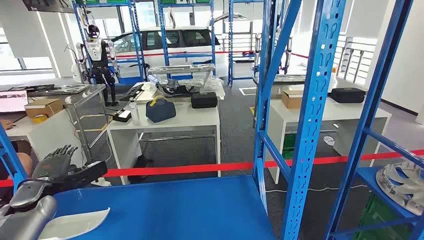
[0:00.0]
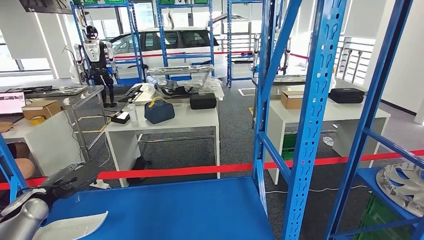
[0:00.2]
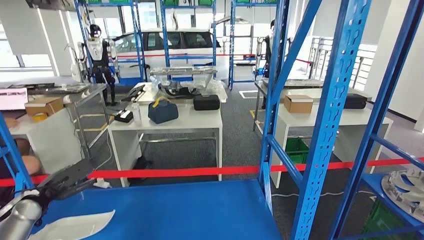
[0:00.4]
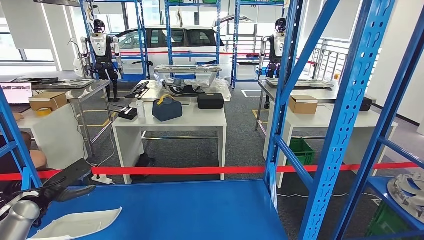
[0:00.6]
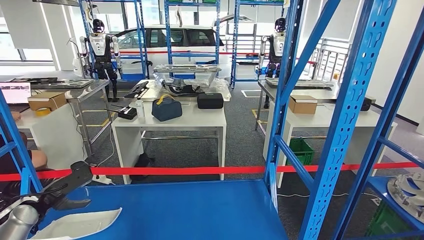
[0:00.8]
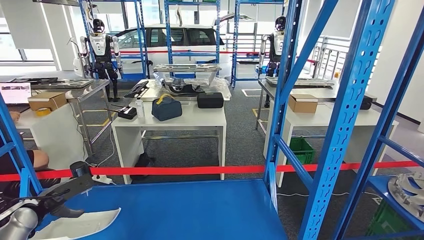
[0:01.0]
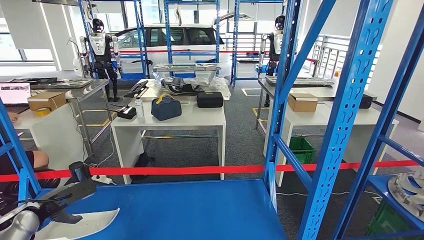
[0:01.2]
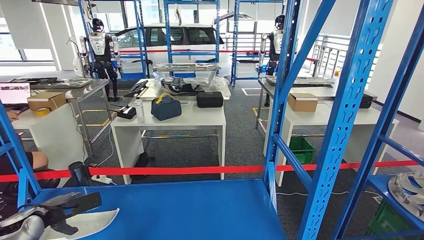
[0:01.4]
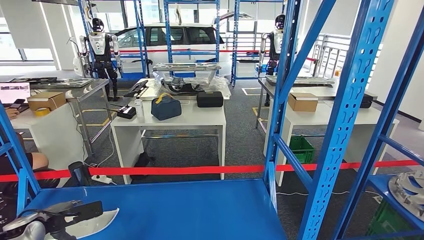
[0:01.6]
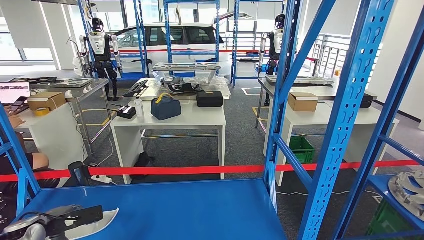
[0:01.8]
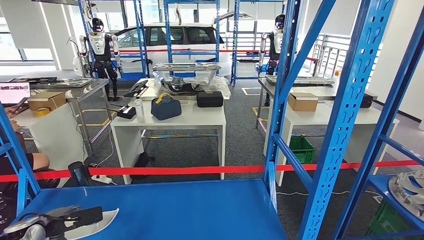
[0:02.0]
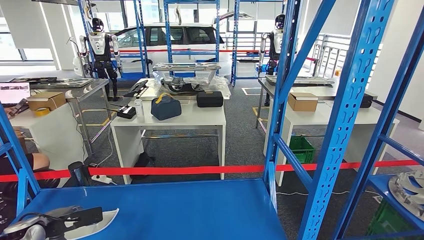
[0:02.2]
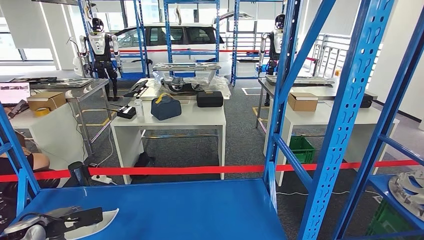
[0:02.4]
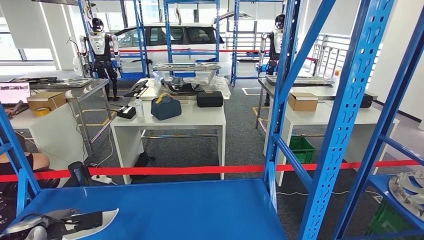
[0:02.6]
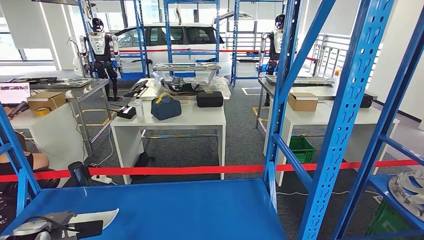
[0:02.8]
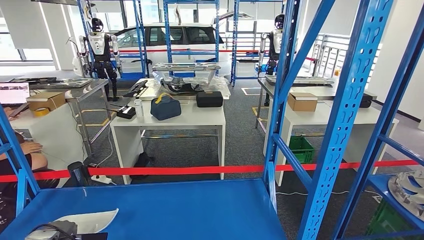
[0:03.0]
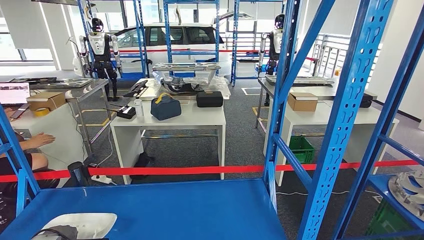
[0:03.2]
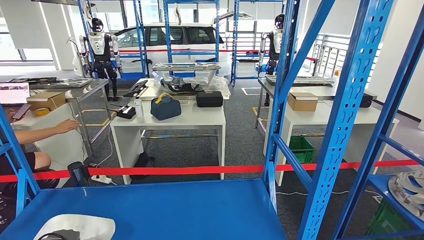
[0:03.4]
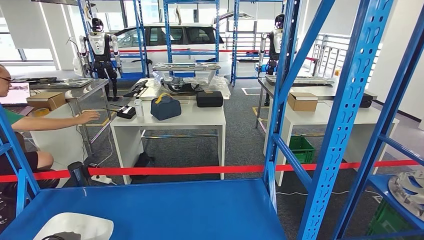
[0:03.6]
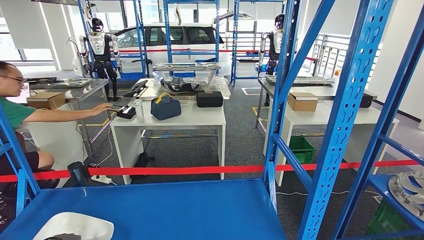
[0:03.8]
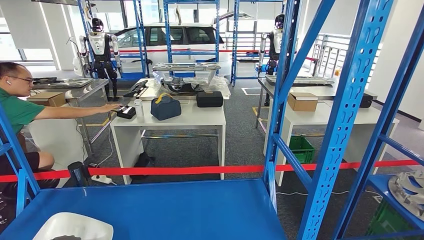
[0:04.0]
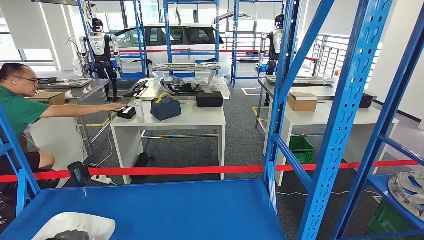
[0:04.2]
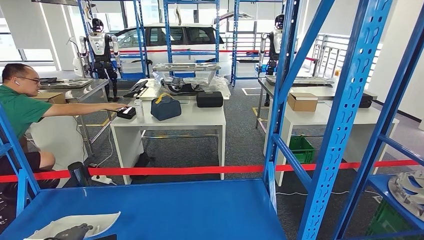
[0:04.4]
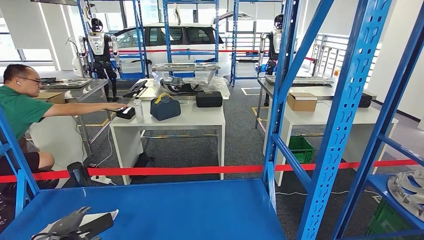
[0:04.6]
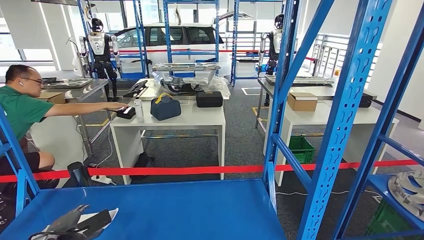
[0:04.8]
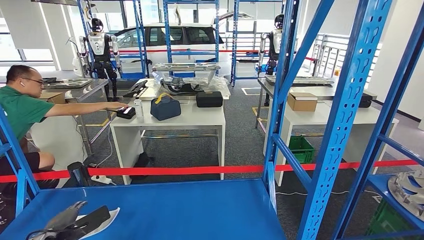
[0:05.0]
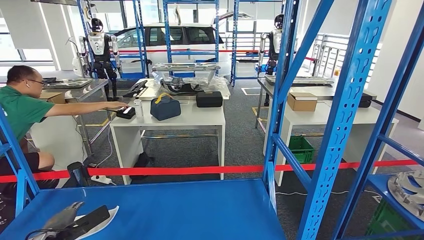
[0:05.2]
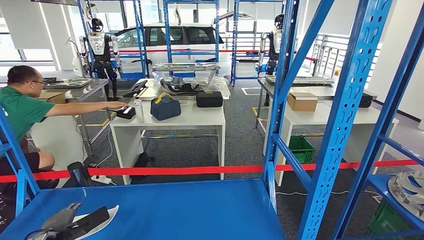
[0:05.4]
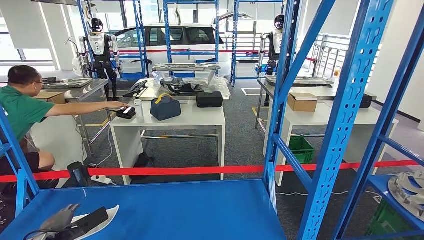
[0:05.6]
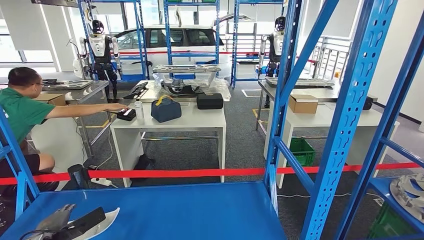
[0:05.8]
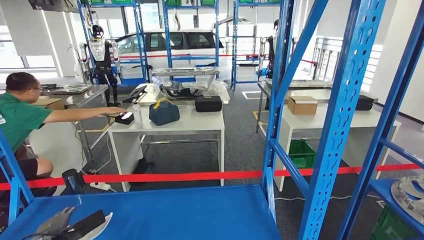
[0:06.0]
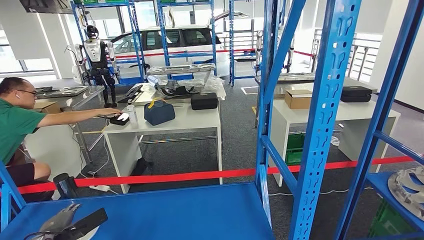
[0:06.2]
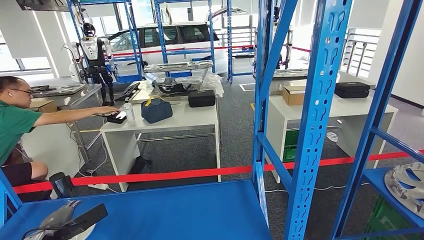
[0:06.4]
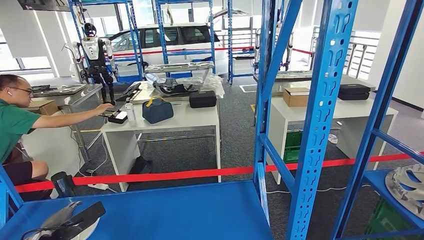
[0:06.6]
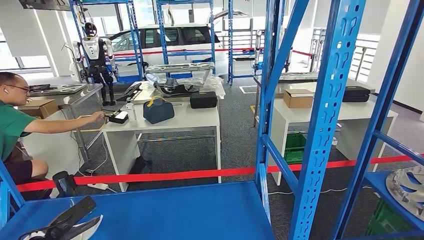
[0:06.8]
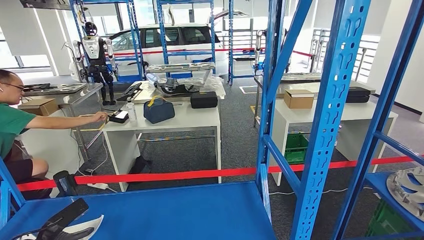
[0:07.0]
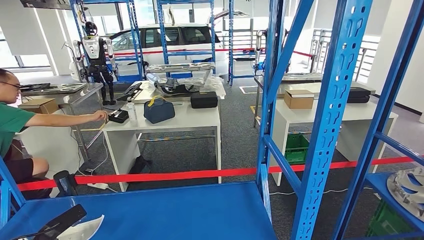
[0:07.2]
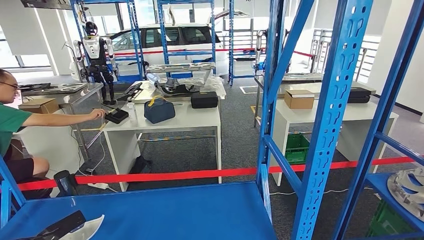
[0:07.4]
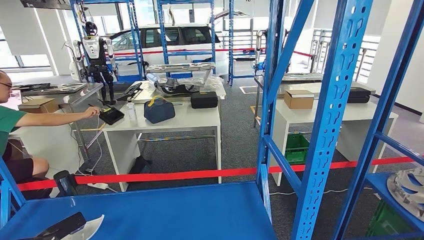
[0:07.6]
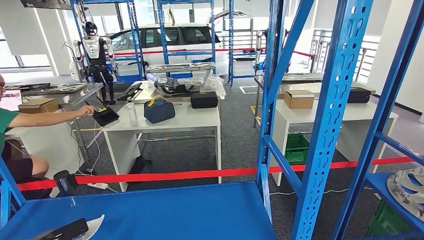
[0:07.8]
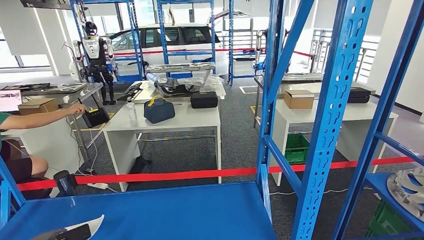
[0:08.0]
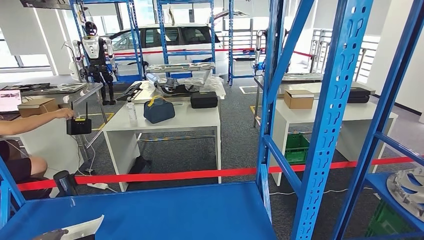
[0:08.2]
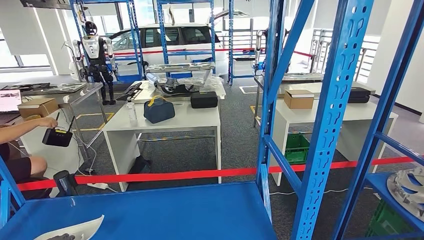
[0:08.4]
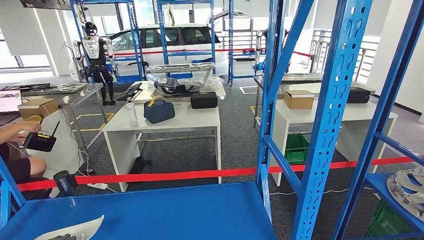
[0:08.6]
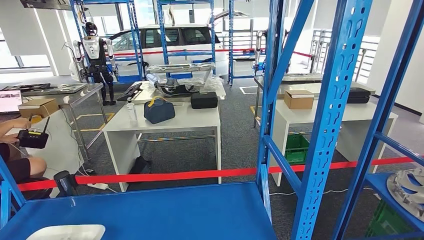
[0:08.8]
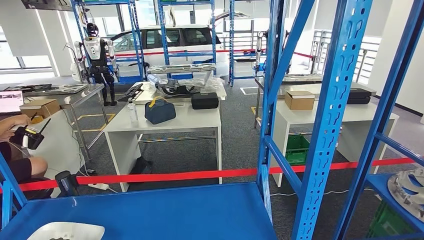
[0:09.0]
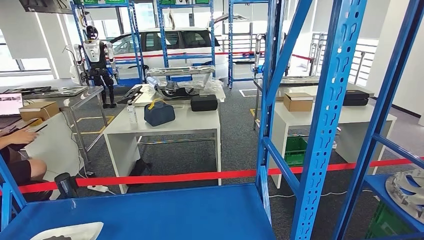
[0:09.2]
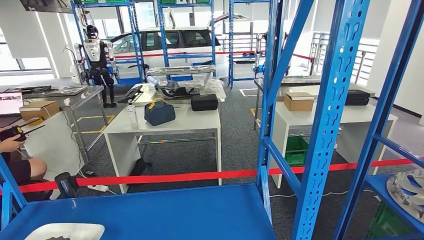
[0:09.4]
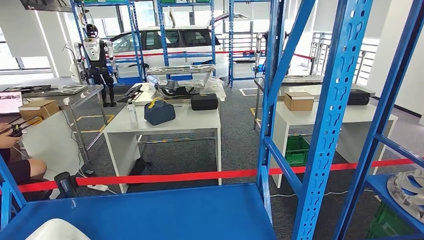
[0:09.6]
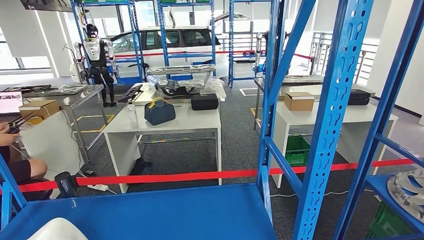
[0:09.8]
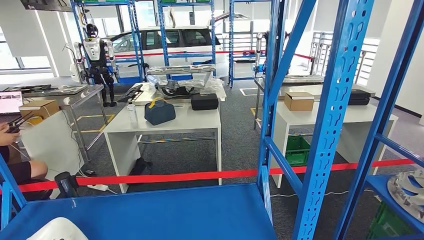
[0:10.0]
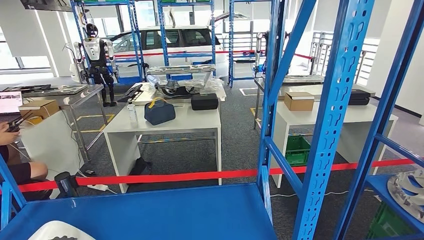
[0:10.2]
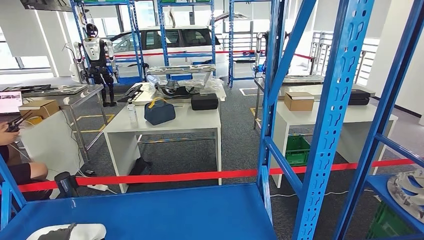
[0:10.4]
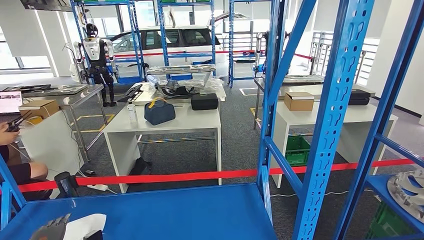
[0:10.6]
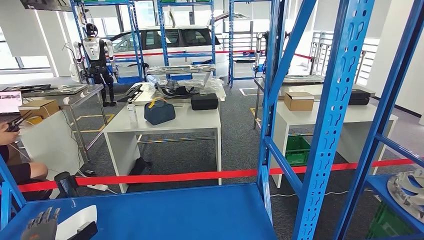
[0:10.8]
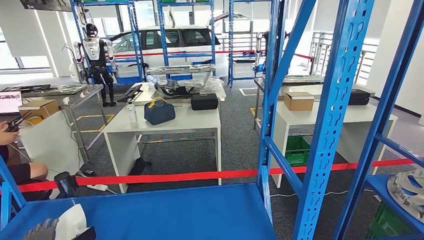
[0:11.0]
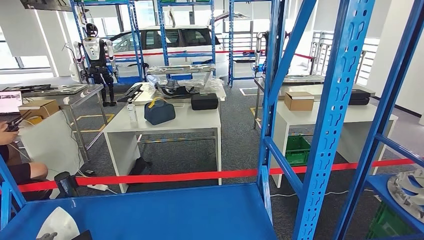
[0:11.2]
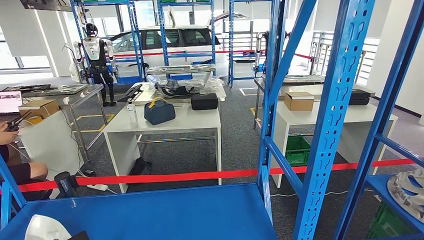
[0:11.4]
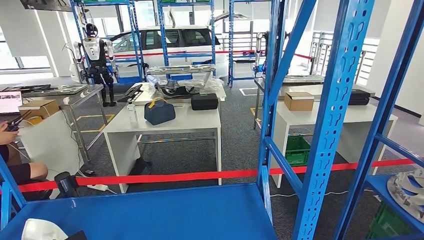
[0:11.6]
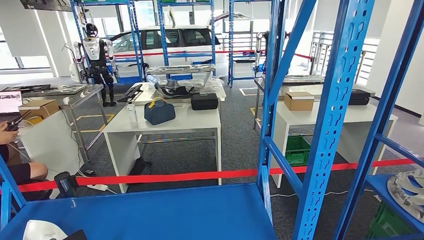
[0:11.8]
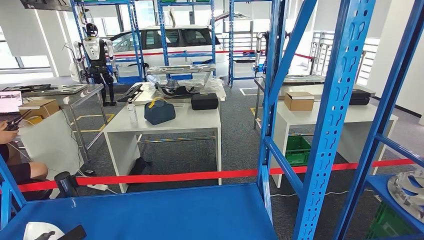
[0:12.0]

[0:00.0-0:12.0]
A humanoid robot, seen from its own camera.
0:03.0 to 0:04.4: There are only small adjustments of the hands.
0:07.6 to 0:09.0: The left hand ends up about 5 cm from where it was.

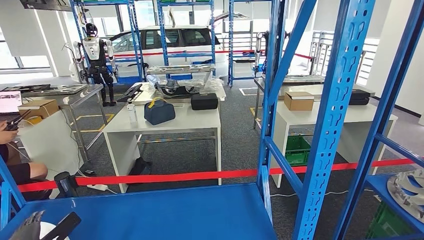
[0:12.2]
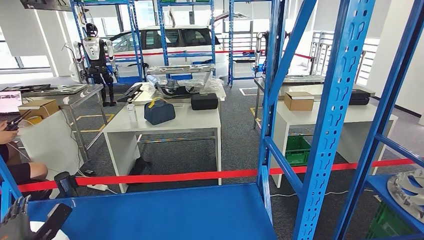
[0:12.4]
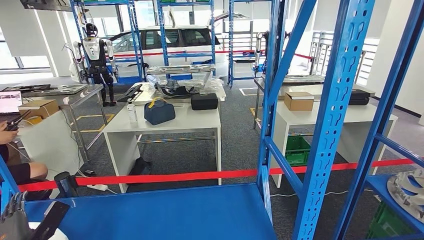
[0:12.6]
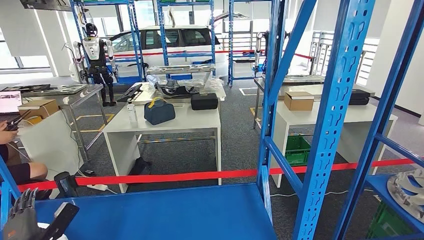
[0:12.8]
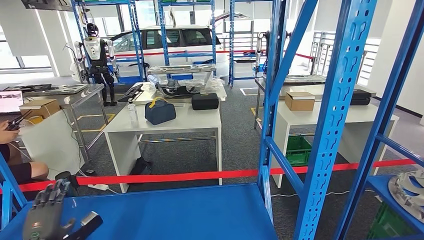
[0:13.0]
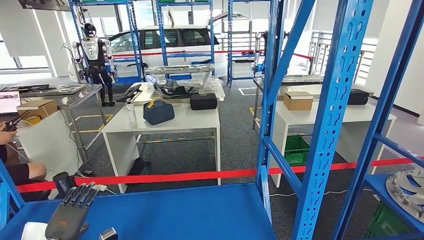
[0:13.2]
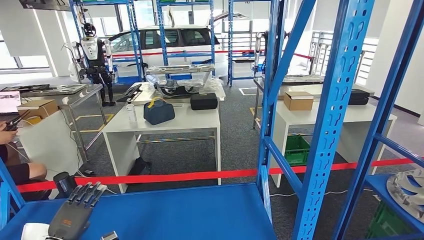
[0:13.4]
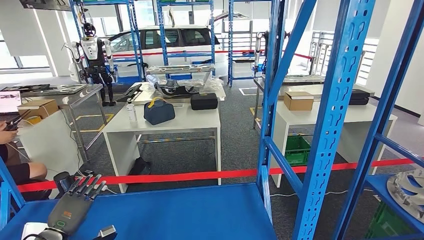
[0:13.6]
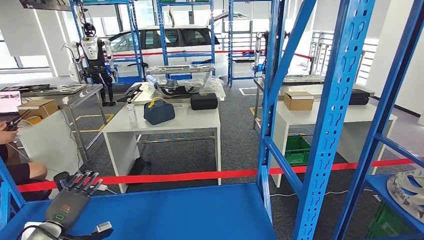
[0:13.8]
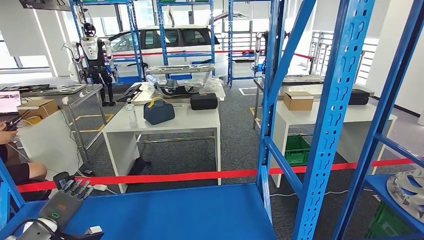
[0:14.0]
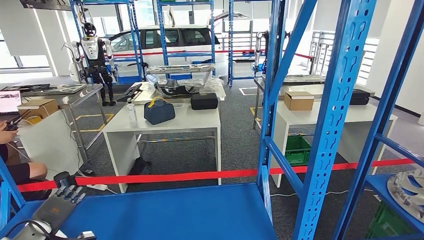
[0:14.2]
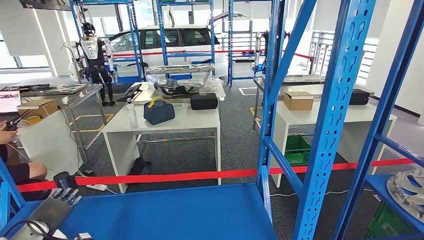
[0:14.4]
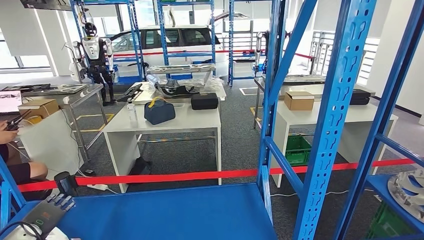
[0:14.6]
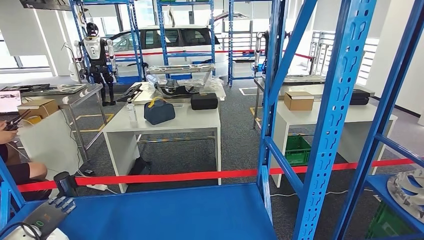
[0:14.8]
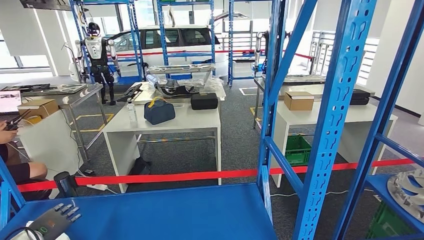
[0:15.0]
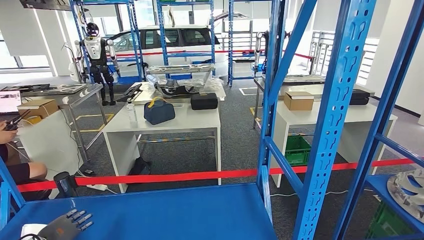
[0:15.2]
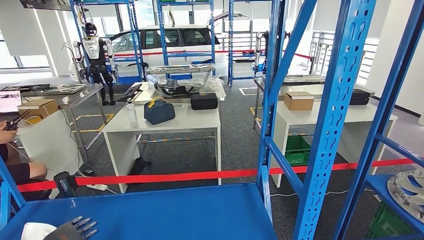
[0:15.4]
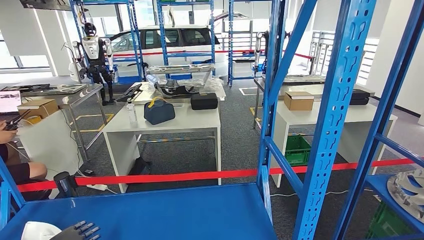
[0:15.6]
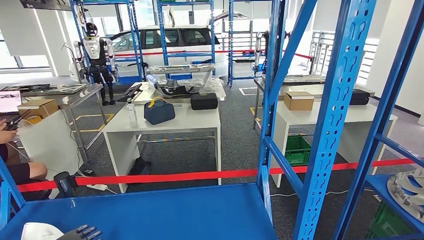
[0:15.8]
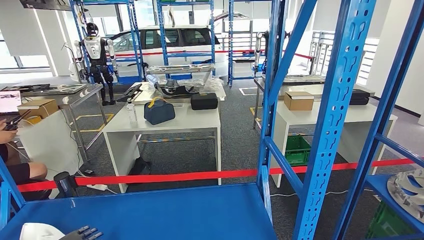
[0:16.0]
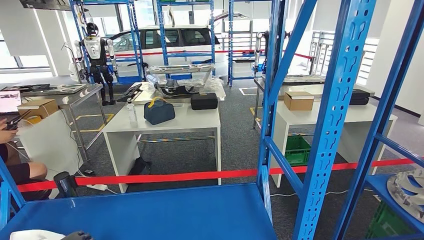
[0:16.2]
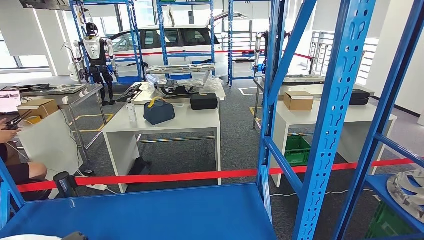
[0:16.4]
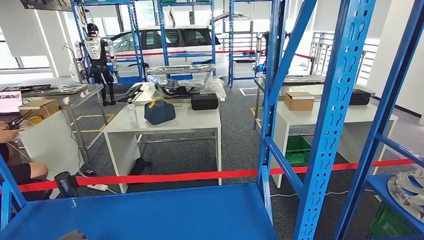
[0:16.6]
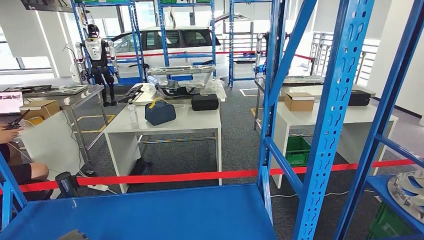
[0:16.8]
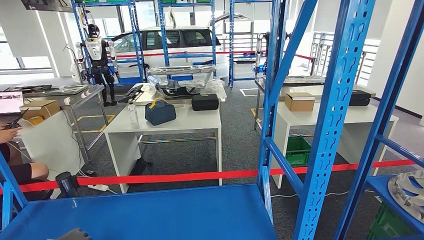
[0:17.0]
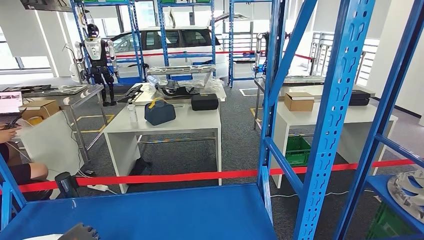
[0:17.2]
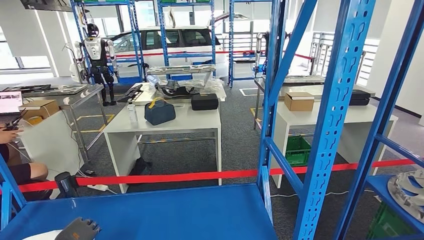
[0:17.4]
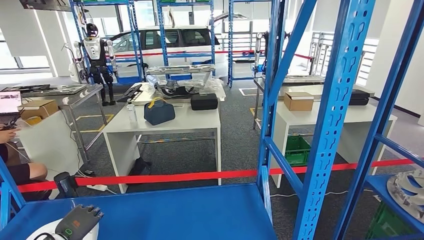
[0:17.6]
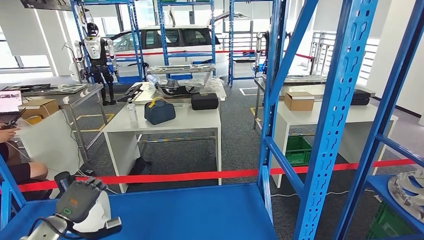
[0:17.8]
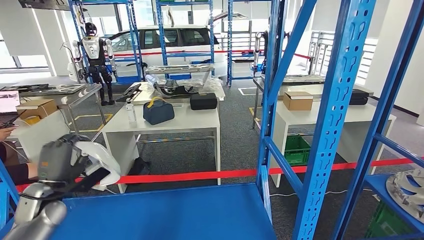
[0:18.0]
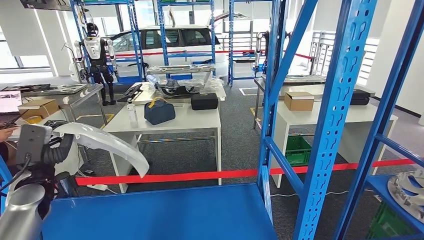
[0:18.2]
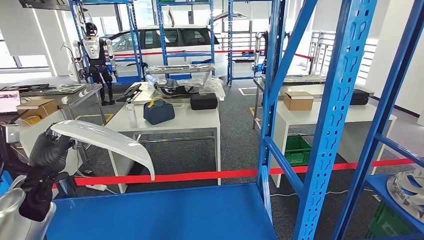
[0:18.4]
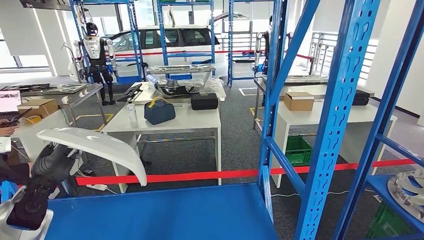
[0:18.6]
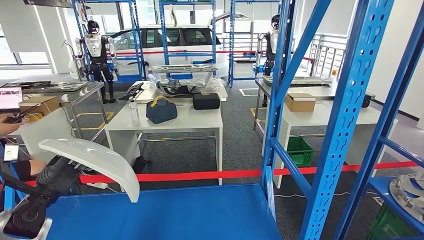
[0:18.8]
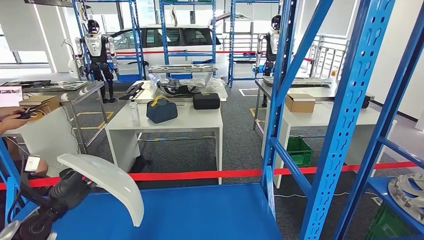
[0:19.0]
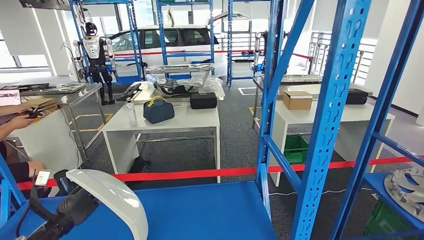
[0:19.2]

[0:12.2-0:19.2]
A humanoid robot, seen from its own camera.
0:12.2 to 0:13.6: The left hand moves approximately 5 cm.
0:13.6 to 0:15.0: The left hand travels to the left by some 5 cm.
0:15.0 to 0:16.4: The left hand moves about 5 cm.
0:16.4 to 0:17.8: The left hand moves upward, roughly 5 cm.
